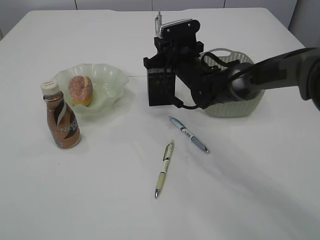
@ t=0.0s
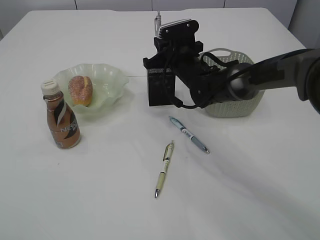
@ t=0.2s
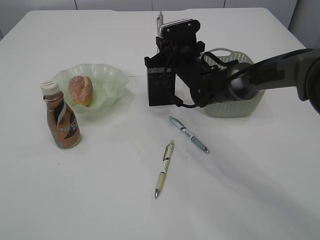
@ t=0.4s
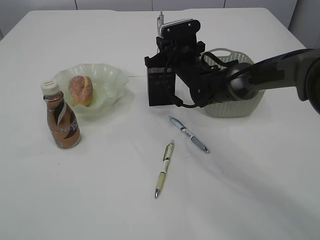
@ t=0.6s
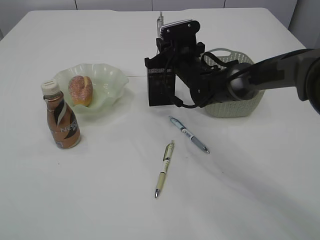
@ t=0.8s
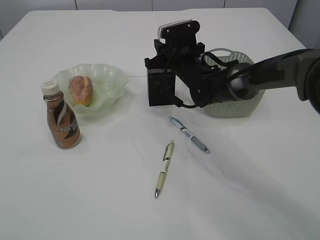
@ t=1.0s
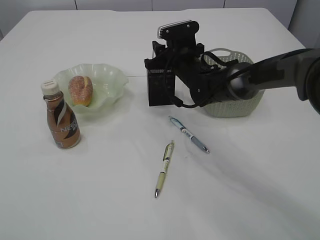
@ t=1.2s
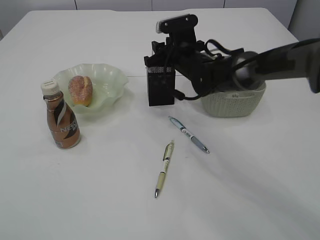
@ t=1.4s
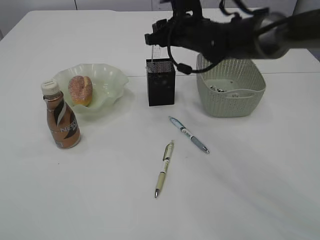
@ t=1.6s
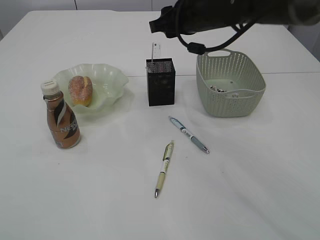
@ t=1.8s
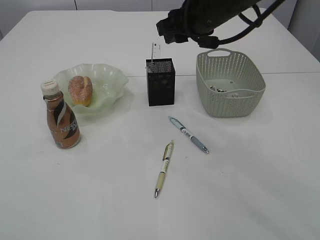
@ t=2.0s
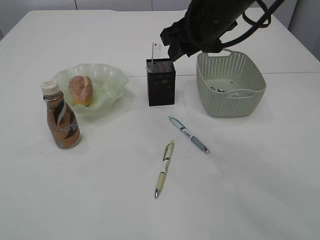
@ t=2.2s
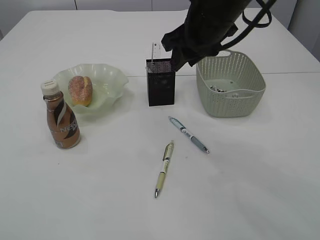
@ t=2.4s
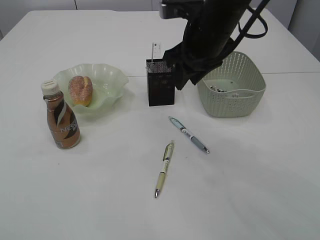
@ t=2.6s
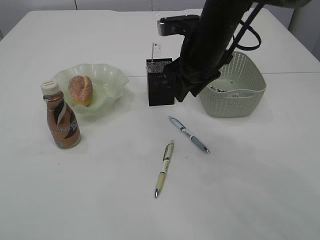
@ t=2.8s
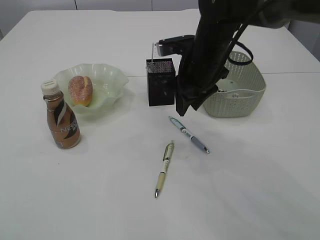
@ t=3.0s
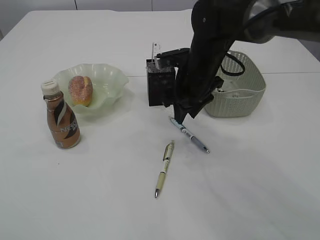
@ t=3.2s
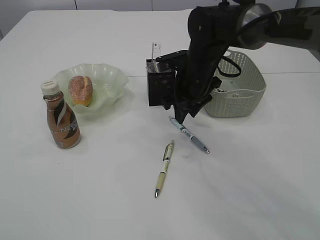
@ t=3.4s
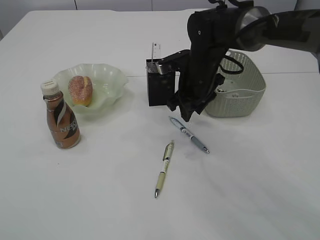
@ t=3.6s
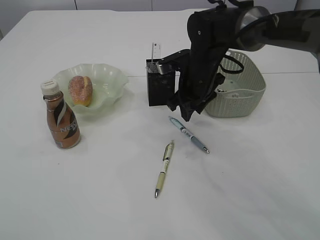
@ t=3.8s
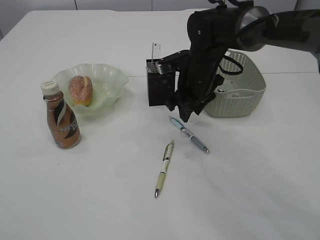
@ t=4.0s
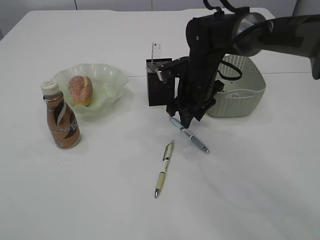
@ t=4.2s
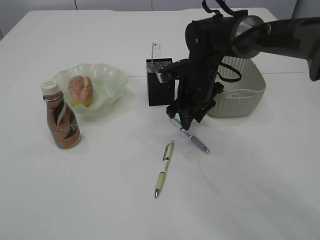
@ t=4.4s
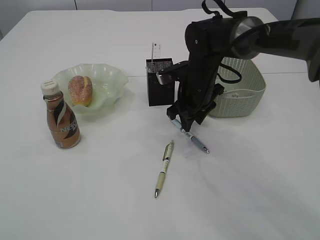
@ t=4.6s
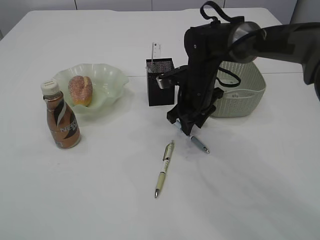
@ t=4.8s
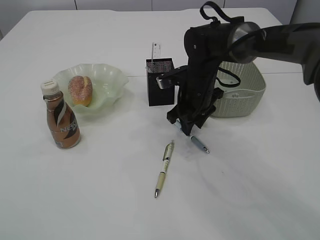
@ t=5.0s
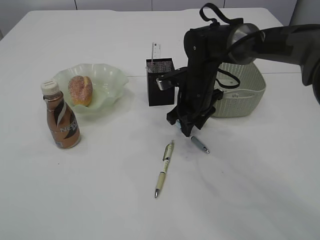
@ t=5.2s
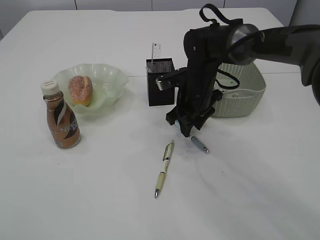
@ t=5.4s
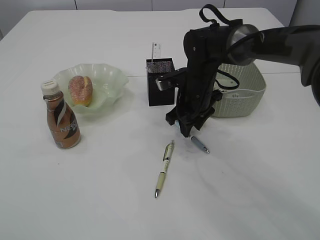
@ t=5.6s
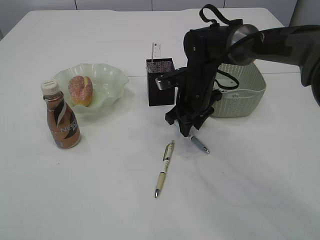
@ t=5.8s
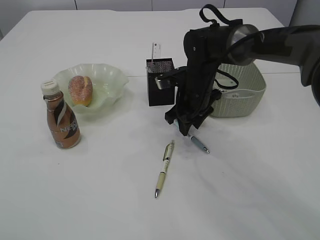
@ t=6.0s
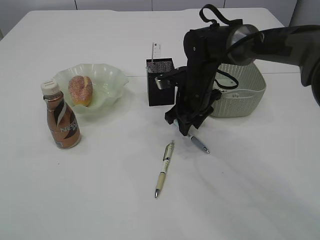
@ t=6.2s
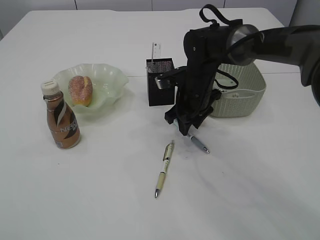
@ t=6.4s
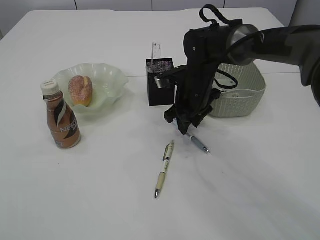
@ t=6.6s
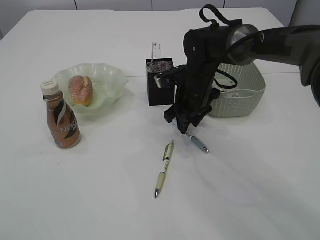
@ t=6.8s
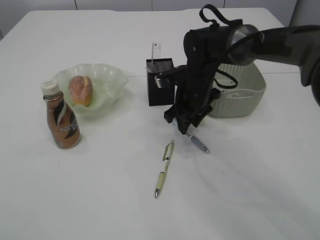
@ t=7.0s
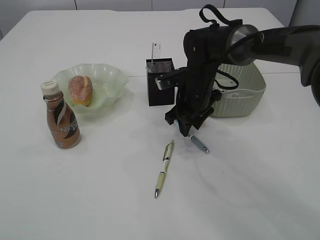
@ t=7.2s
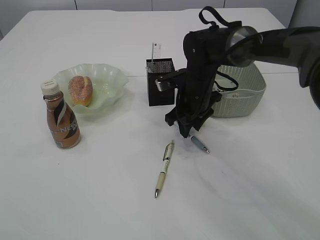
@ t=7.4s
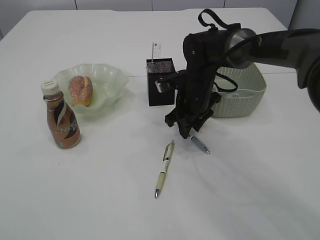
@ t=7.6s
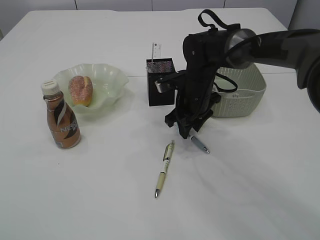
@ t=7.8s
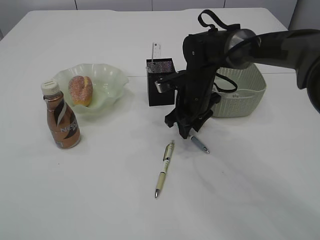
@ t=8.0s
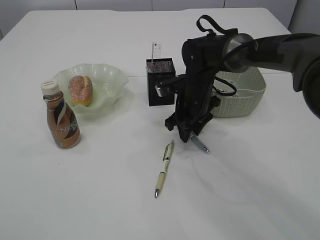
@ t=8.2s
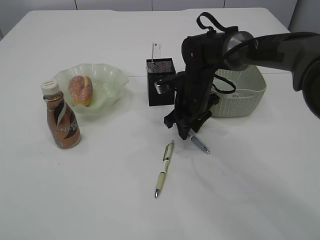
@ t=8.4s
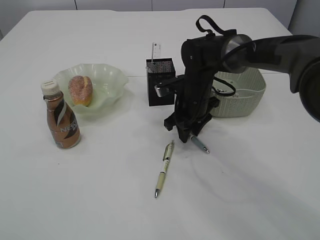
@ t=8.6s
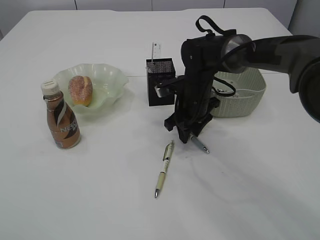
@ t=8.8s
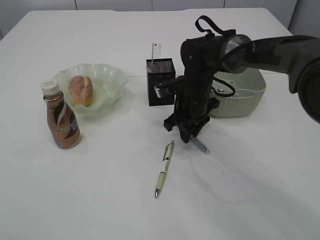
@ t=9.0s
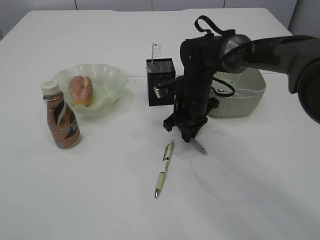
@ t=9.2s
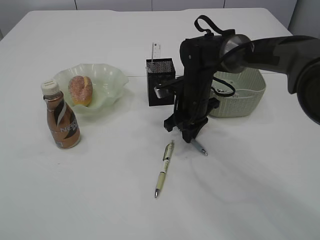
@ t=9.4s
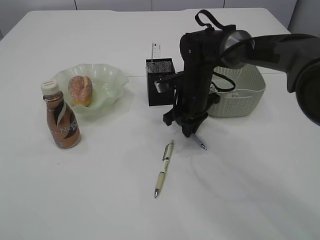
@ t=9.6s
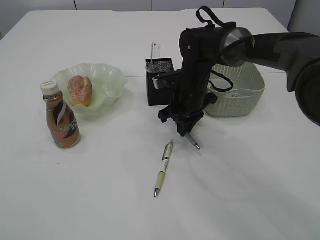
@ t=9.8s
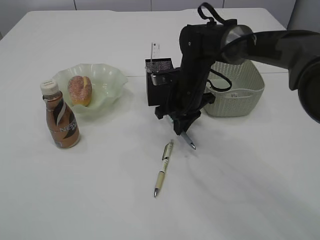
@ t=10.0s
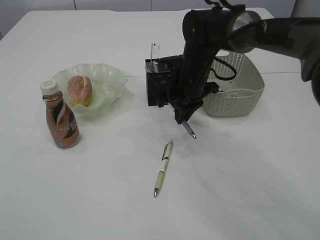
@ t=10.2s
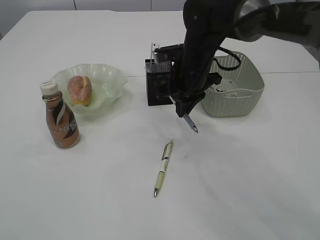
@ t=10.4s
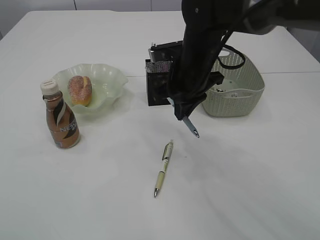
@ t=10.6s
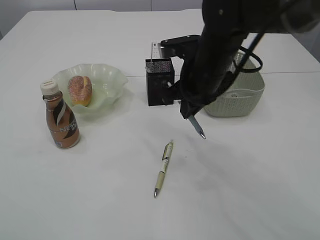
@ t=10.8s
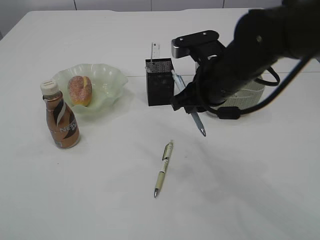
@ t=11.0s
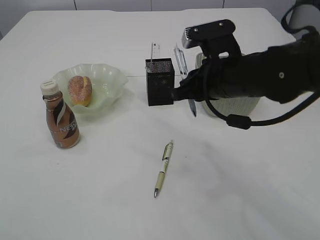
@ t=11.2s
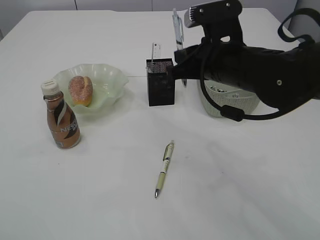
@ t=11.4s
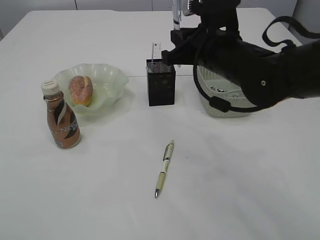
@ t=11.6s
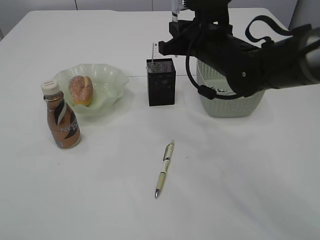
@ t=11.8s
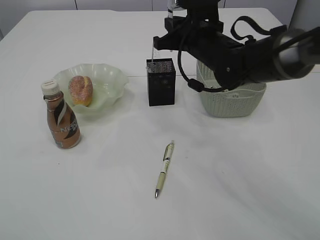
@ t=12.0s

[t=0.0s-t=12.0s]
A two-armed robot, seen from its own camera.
Step, t=1.8s to t=10.2s: Pick up the pen with right arm.
t=0.0s to t=1.6s: The right gripper shifts about 5 cm upward, and opens up.
t=1.6s to t=3.0s: The right gripper travels backward by approximately 5 cm.
t=3.0s to t=4.4s: The right gripper shifts roughly 5 cm downward.
t=4.4s to t=6.0s: The grippers make only small movements.
t=6.0s to t=7.6s: Both grippers stay about where they are.
t=7.6s to t=9.0s: Both grippers stay put.
t=9.0s to t=10.4s: The right gripper shifts roughly 5 cm upward.
t=10.4s to t=12.0s: The right gripper travels backward and back again, about 10 cm each way.

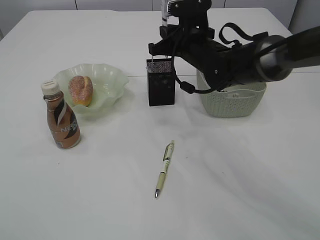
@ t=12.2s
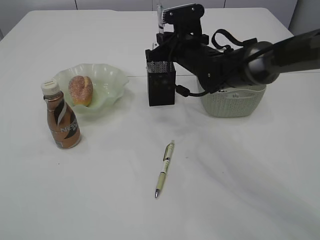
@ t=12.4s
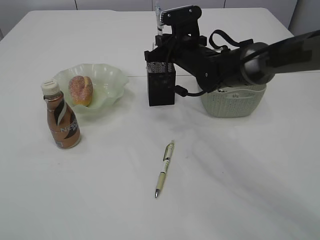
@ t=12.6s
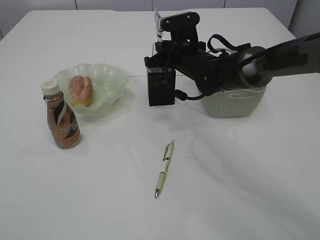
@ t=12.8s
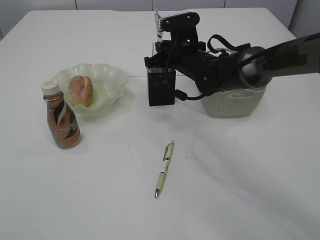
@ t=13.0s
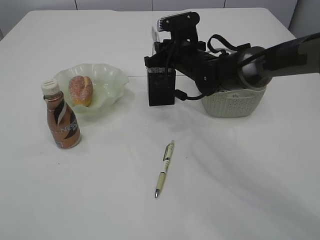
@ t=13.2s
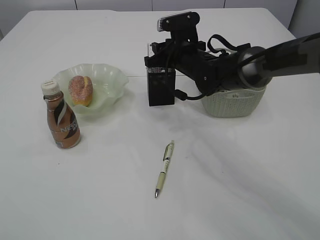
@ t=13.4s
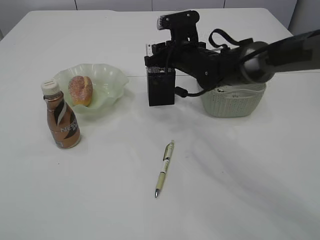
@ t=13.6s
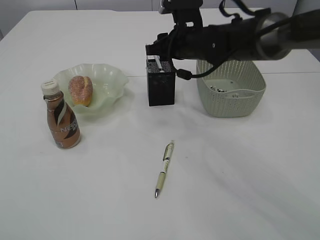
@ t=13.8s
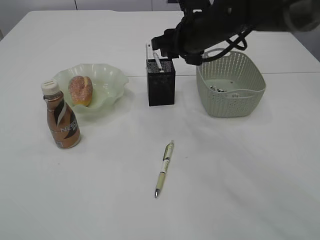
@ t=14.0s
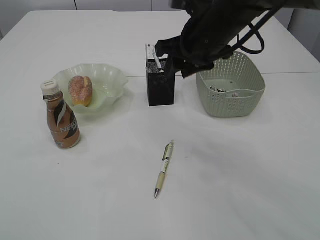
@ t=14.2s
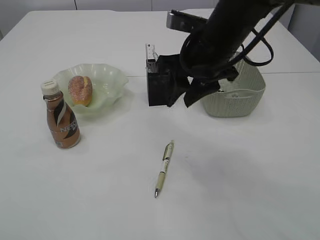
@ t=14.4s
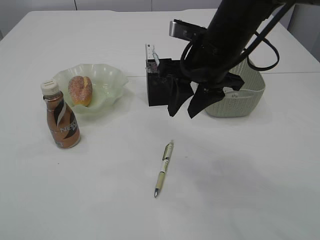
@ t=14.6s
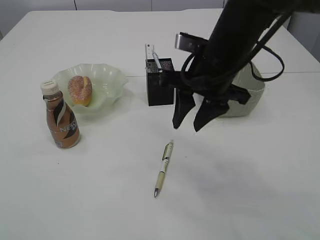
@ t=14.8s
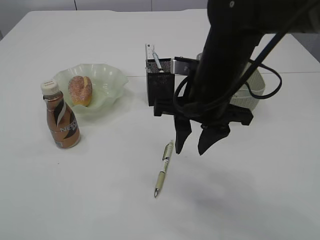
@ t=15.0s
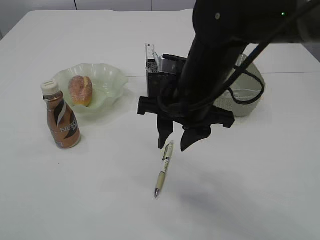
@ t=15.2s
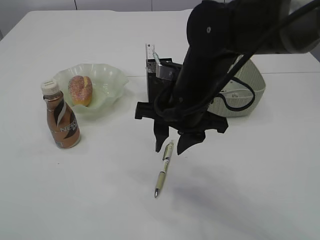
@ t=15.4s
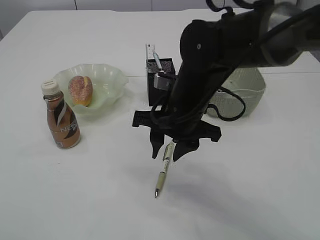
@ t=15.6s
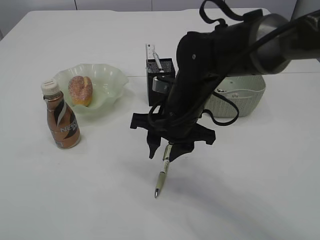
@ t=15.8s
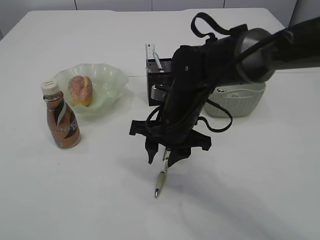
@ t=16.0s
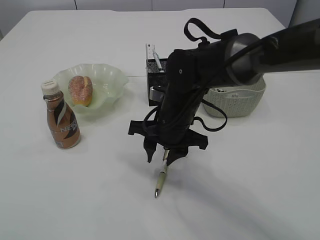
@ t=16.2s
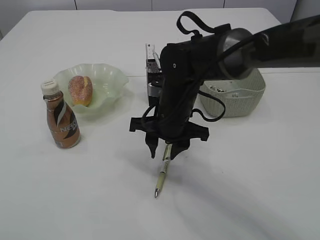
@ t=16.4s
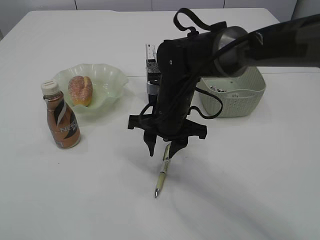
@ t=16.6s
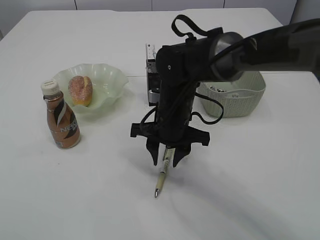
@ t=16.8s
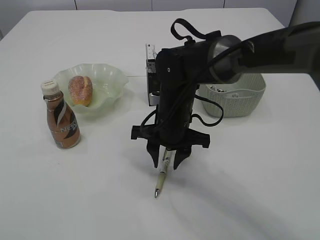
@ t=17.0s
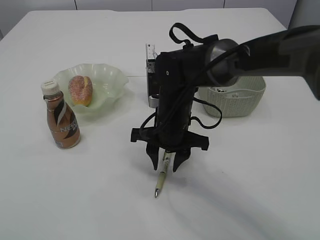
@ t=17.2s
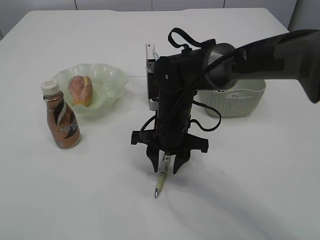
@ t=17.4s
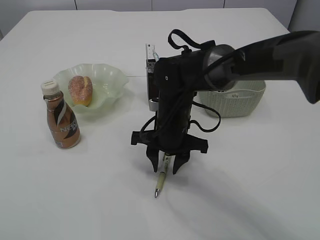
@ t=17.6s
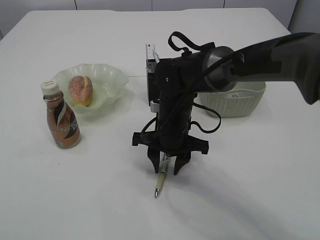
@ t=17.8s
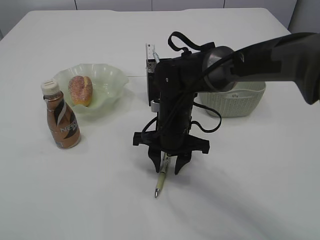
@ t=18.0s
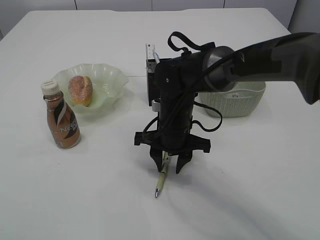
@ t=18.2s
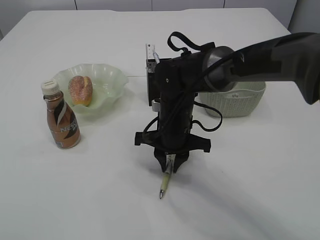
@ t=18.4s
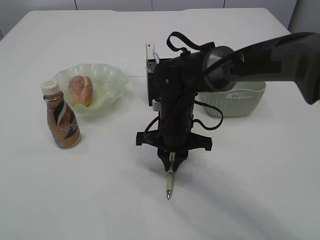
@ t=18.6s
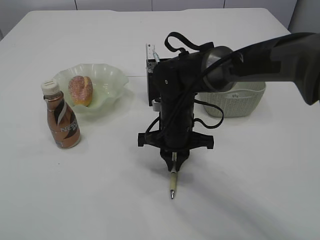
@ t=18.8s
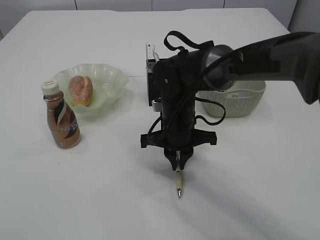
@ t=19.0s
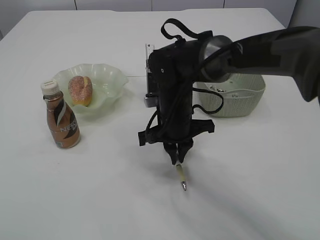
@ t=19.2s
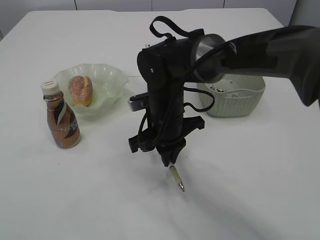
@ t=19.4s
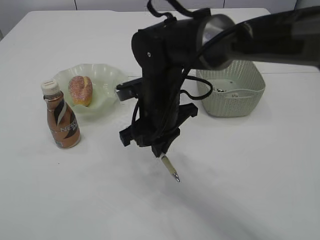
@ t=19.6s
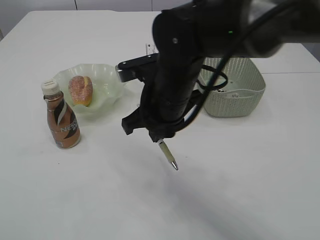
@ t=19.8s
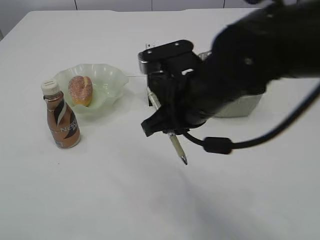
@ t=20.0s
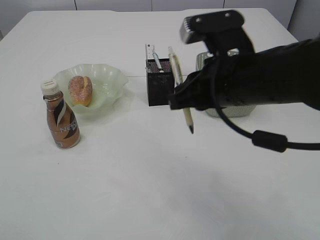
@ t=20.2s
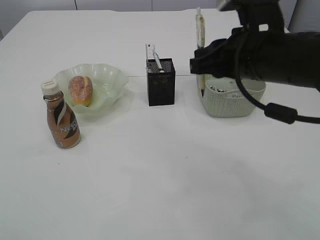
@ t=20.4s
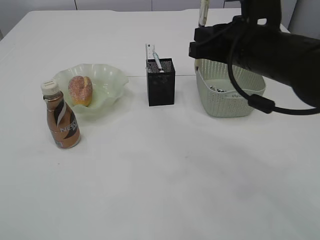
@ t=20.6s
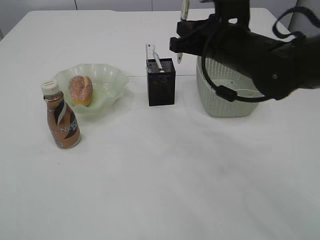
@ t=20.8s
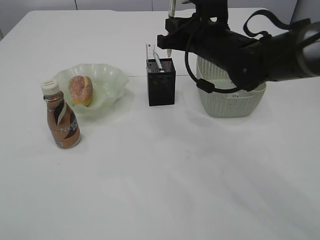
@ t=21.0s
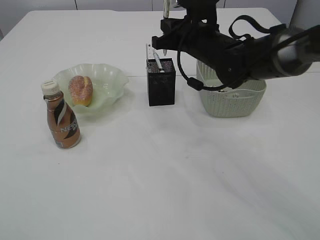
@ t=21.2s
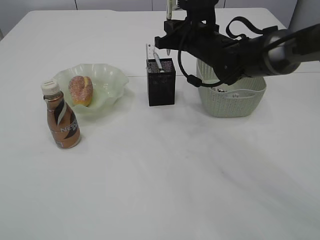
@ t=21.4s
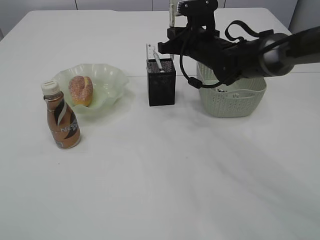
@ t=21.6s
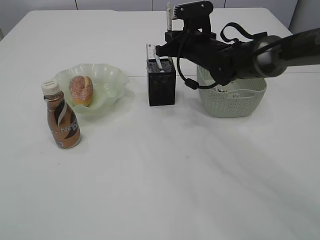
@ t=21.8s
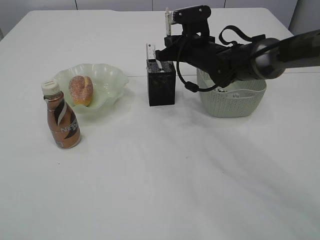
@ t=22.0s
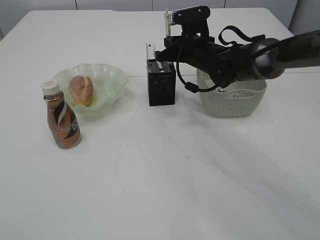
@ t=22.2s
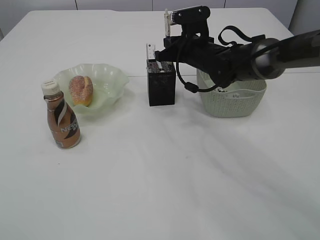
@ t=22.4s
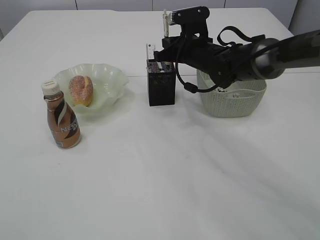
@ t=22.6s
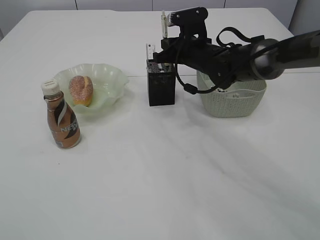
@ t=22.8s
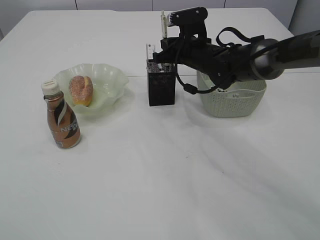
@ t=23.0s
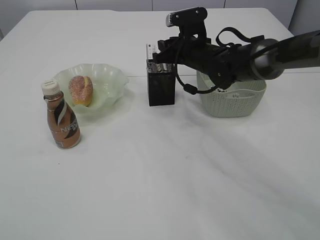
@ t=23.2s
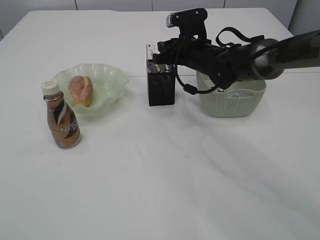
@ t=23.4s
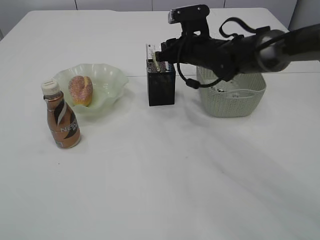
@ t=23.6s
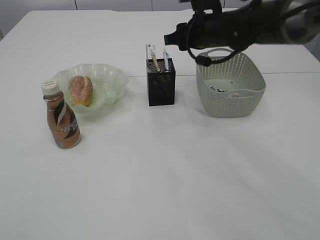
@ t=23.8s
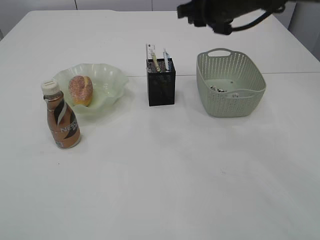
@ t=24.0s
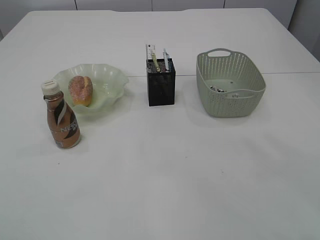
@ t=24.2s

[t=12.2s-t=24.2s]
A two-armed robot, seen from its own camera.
Step, t=12.2s to t=14.0s: Place the pen into the pen holder.
Step, t=14.2s to t=19.6s: Pick up the pen with right arm.
Step, t=19.8s to t=23.8s: Place the pen into the pen holder.
t=12.2s to t=13.8s: The right gripper opens up.
t=13.8s to t=15.2s: The right gripper is displaced backward by about 15 cm.
t=15.2s to t=16.6s: The right gripper goes approximately 10 cm downward and forward.
t=16.6s to t=18.2s: The grippers make only small movements.
t=18.2s to t=19.8s: The right gripper goes about 10 cm upward, and closes its fingers.
t=19.8s to t=21.2s: The right gripper moves forward and to the right, some 15 cm.
t=21.2s to t=22.6s: The right gripper ends up approximately 5 cm from where it was.
t=22.6s to t=24.2s: The right gripper travels upward and backward by roughly 20 cm, and opens up. The left gripper opens.
